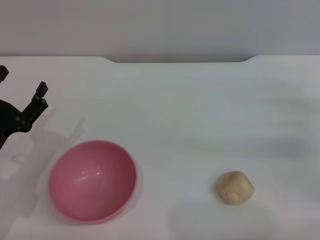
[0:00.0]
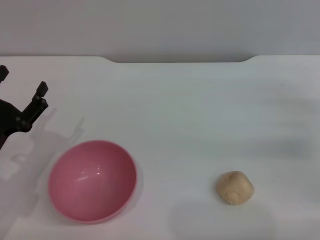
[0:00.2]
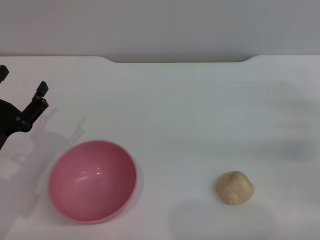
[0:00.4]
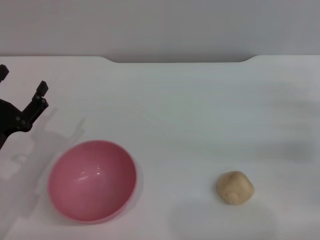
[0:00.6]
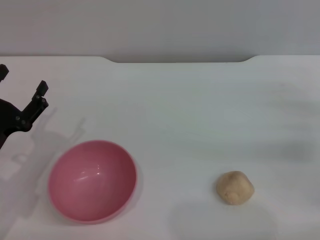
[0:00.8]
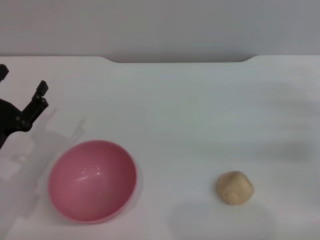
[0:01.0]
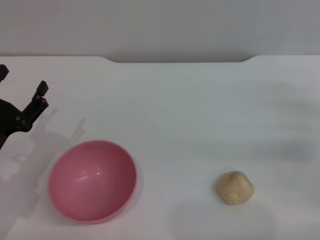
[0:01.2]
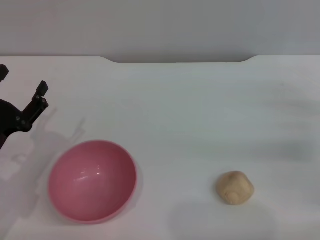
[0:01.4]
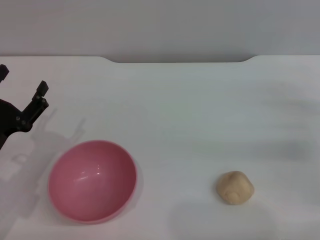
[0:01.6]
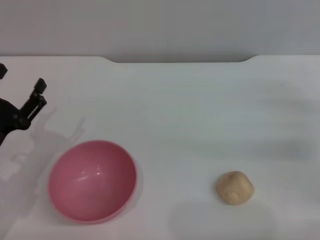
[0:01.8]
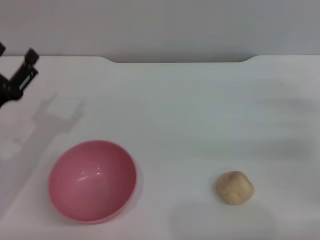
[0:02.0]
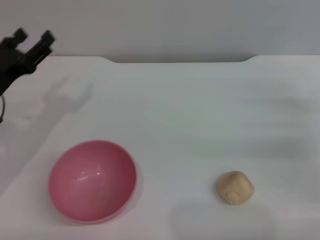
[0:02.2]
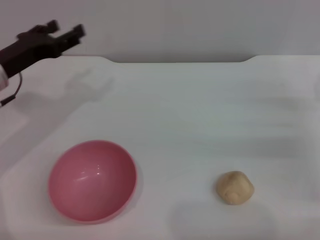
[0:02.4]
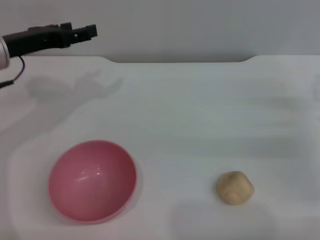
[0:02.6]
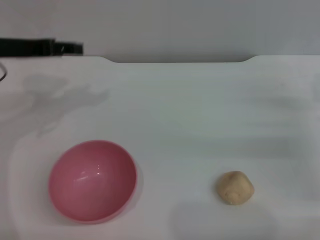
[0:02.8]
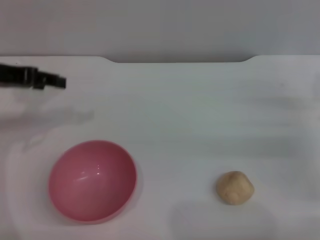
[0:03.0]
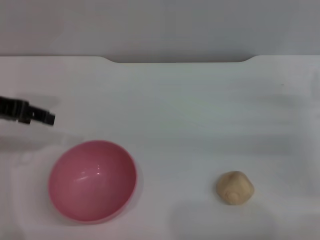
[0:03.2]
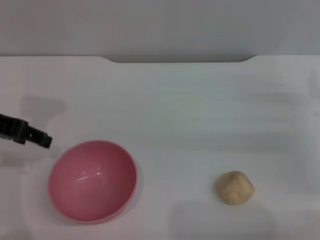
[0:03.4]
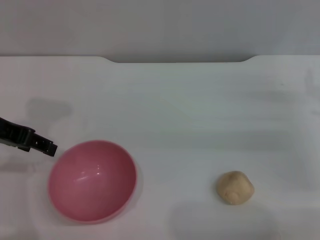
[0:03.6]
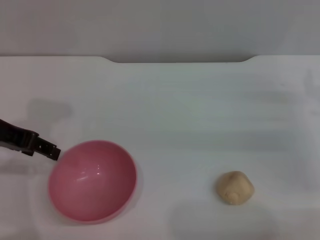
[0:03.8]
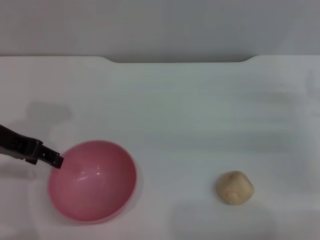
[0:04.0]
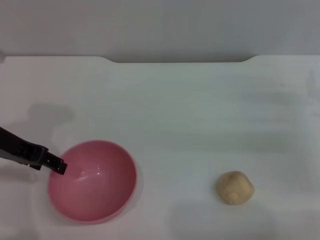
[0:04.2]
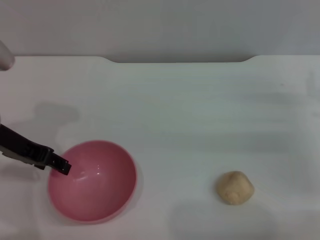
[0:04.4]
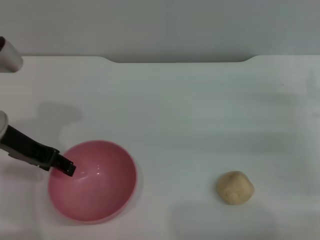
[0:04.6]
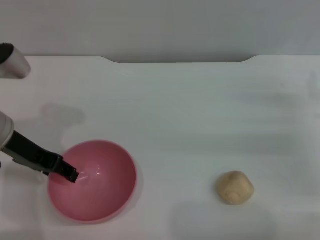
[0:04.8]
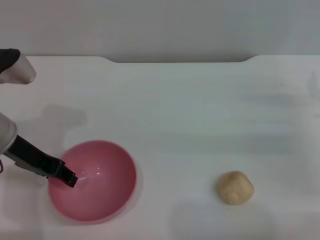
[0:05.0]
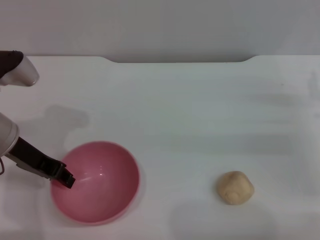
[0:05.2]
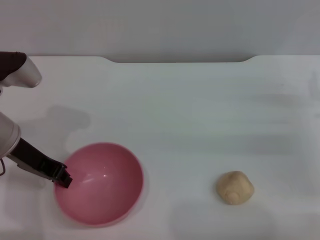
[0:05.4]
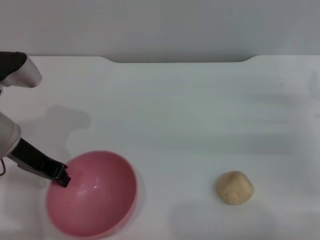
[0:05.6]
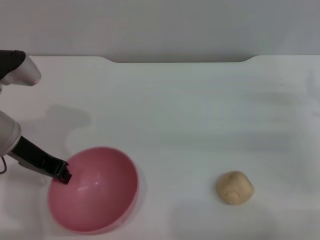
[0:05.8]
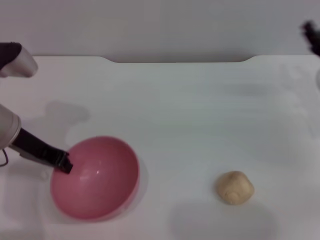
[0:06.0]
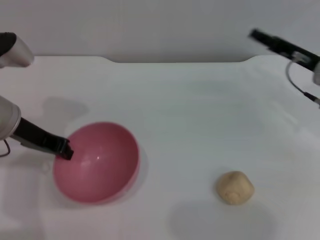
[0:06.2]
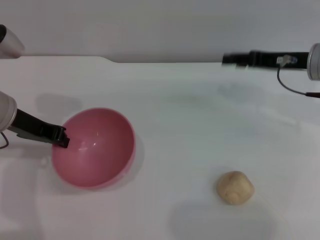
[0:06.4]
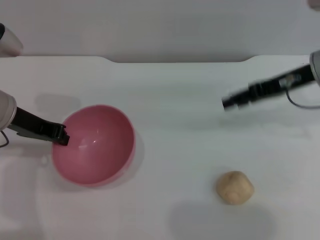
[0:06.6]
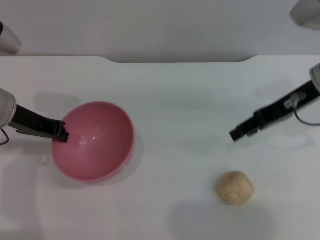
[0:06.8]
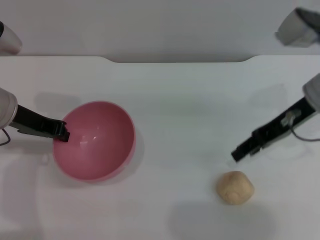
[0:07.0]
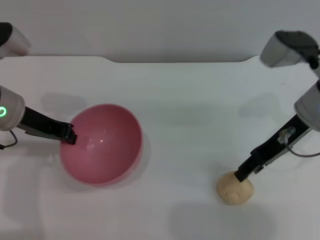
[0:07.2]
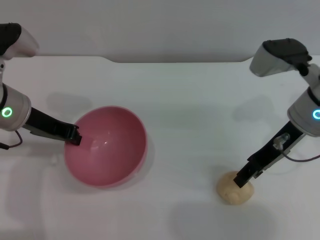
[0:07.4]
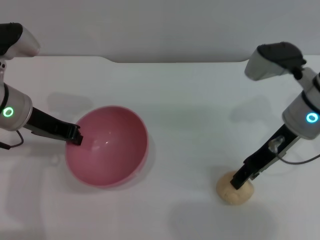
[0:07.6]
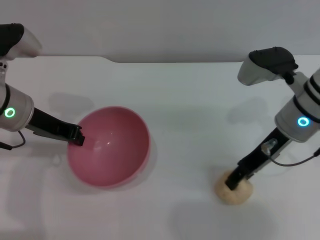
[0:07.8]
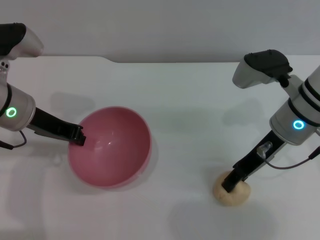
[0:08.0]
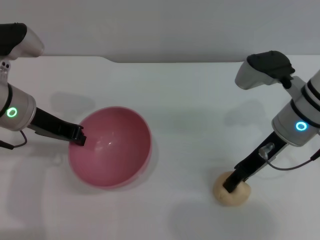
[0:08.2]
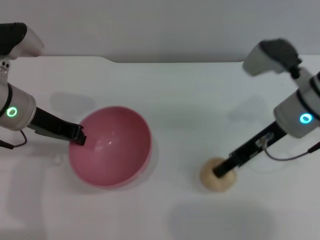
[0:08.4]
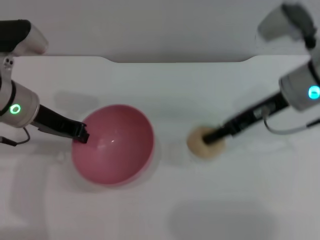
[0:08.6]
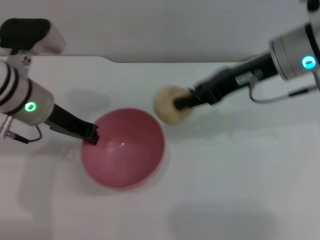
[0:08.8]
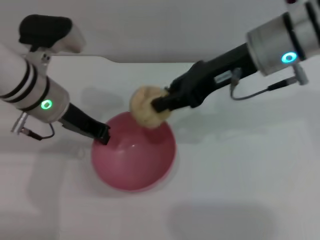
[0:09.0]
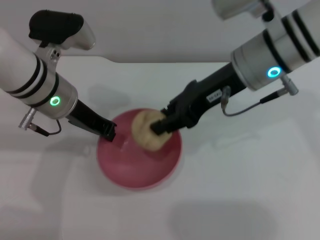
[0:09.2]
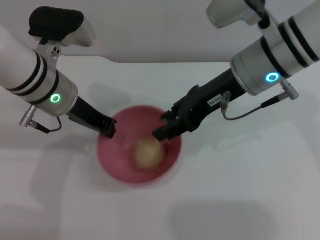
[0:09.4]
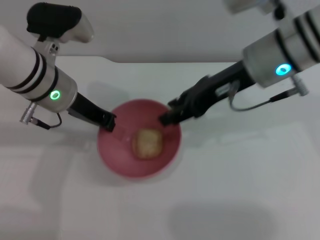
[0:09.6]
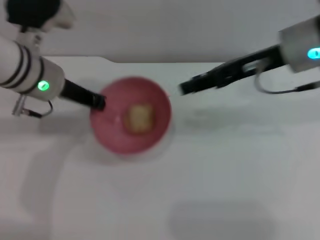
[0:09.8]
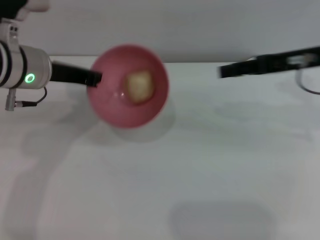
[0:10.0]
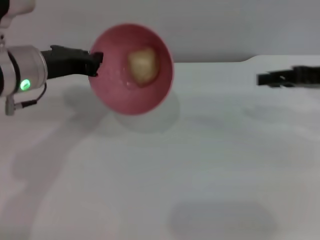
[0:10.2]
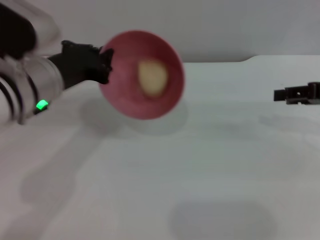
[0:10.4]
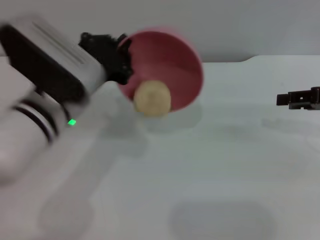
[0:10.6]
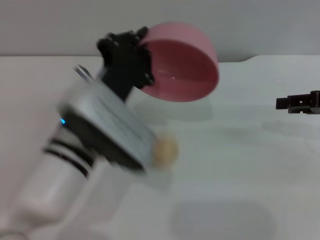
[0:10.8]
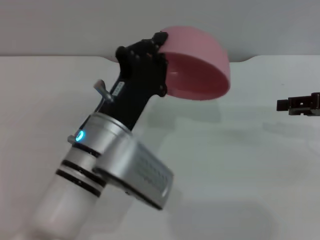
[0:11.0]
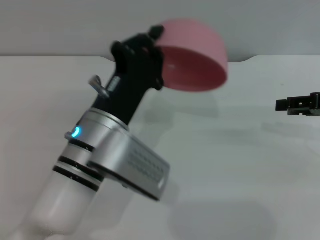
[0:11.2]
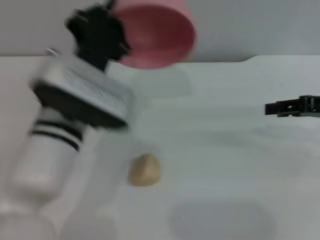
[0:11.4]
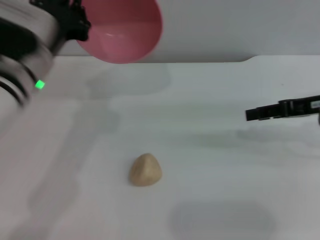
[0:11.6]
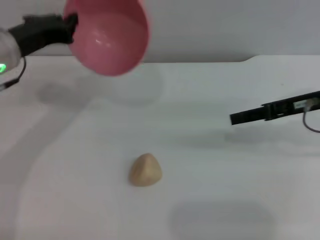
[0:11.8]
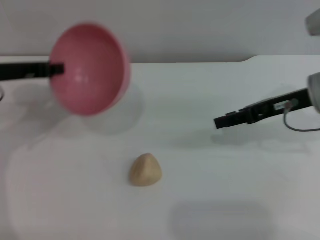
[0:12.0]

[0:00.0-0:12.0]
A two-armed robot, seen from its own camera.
Task of the whole recording: put the egg yolk pastry into the pink bowl and pour it out repeatedly.
Step, 0:00.0 to 0:06.4: Pick up the bowl with the left gripper.
Step, 0:06.8 to 0:08.4: Pick up the egg yolk pastry with the right gripper.
Step, 0:08.6 to 0:09.6: Place the egg yolk pastry into the bowl.
Step, 0:09.8 to 0:11.2: Pour the egg yolk pastry out of bowl.
0:00.0 to 0:01.6: Both grippers stay about where they are.
0:01.6 to 0:03.0: The left gripper goes some 20 cm upward and forward.
0:03.0 to 0:04.4: The left gripper ends up some 5 cm from where it was.
0:04.4 to 0:06.0: The left gripper closes.
0:06.0 to 0:07.6: The right gripper travels to the left and upward by about 15 cm.
0:07.6 to 0:09.0: The left gripper heads to the right, covering roughly 5 cm; the right gripper is displaced upward and to the left by about 10 cm, and closes its fingers.
0:09.0 to 0:10.4: The right gripper moves to the right, some 20 cm, and opens.
0:10.4 to 0:12.0: The grippers both shift to the left by approximately 10 cm.

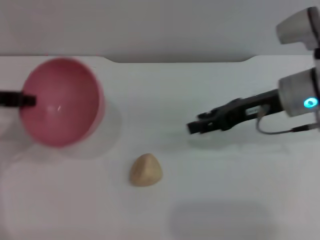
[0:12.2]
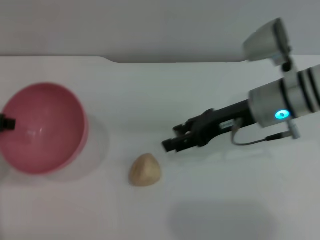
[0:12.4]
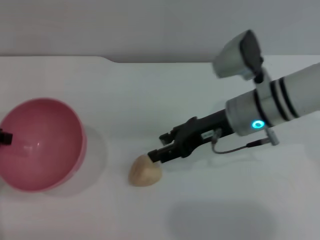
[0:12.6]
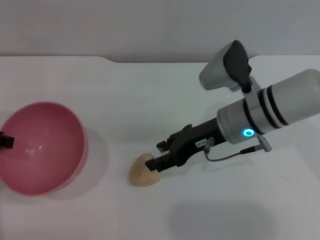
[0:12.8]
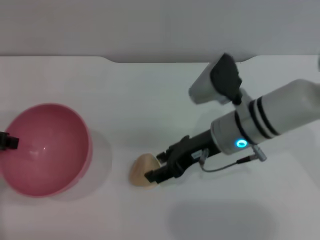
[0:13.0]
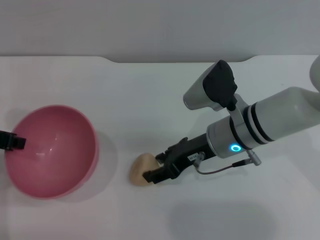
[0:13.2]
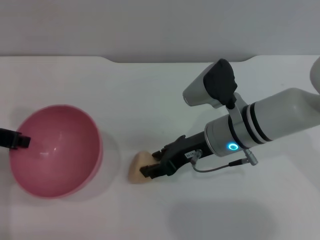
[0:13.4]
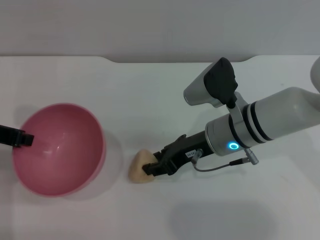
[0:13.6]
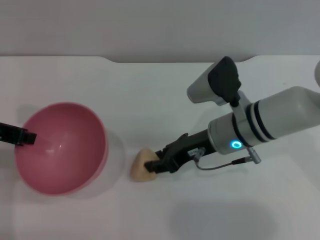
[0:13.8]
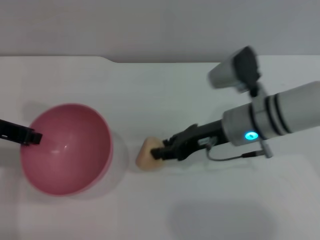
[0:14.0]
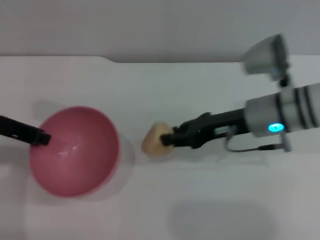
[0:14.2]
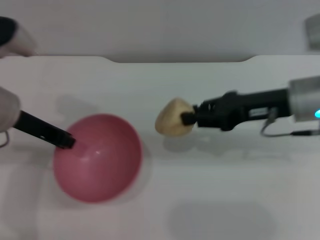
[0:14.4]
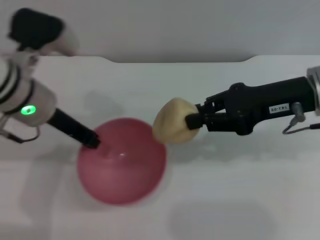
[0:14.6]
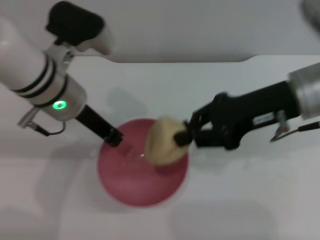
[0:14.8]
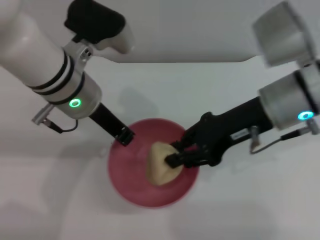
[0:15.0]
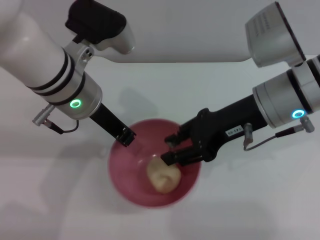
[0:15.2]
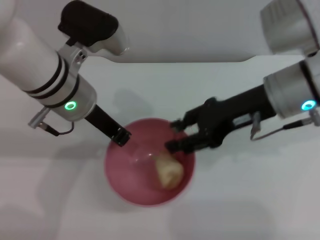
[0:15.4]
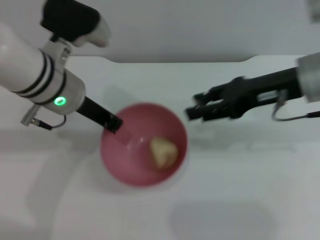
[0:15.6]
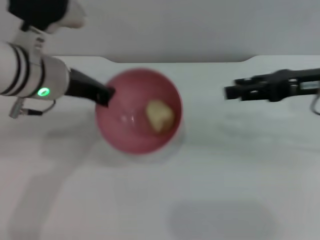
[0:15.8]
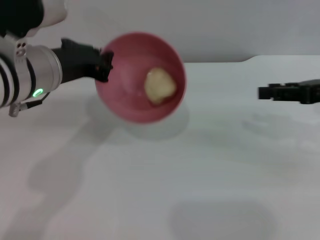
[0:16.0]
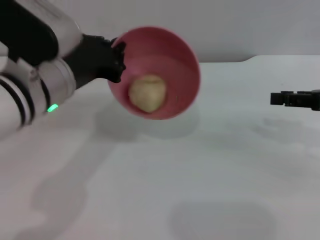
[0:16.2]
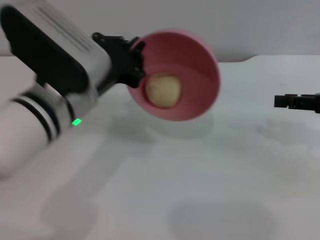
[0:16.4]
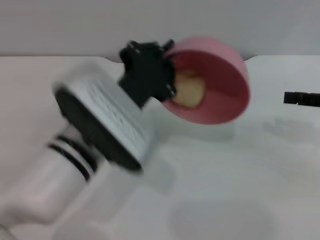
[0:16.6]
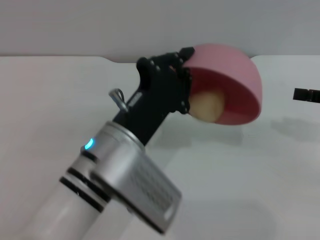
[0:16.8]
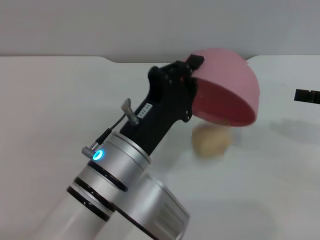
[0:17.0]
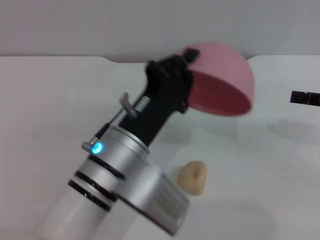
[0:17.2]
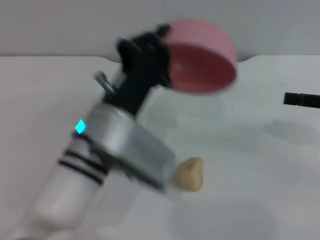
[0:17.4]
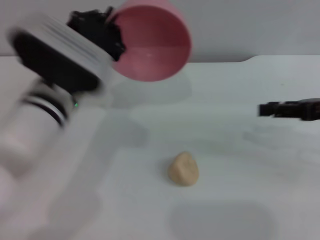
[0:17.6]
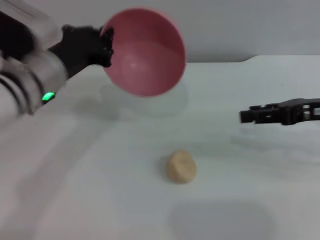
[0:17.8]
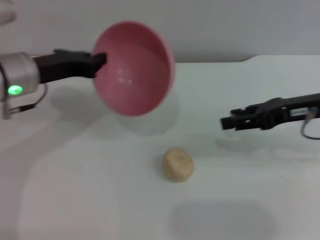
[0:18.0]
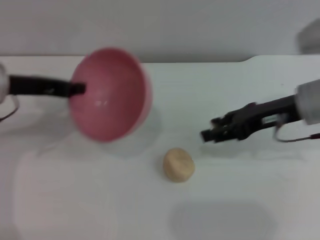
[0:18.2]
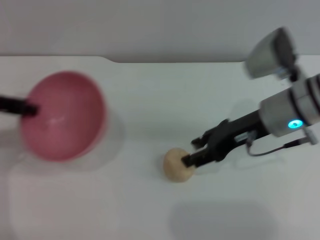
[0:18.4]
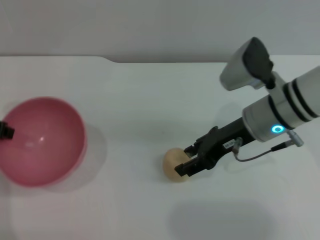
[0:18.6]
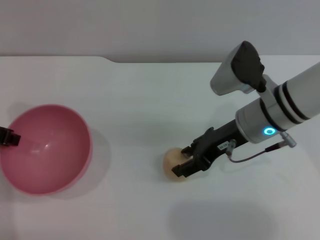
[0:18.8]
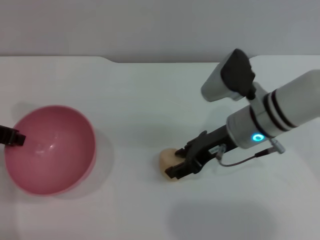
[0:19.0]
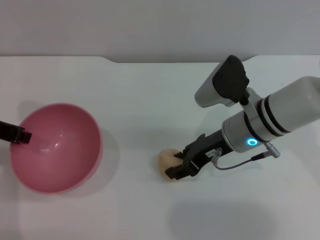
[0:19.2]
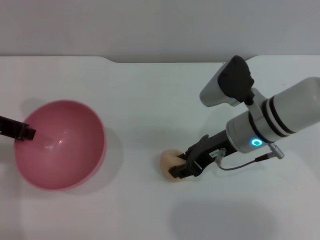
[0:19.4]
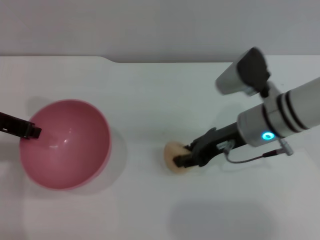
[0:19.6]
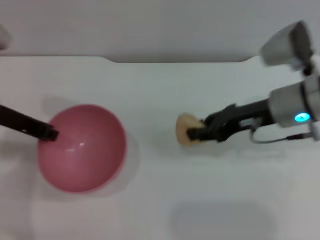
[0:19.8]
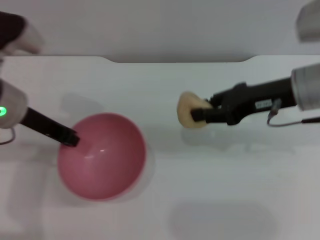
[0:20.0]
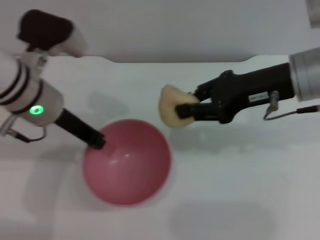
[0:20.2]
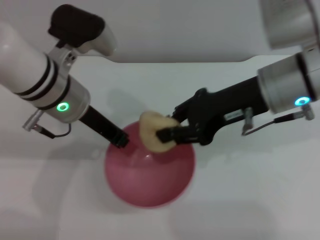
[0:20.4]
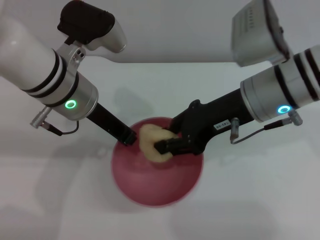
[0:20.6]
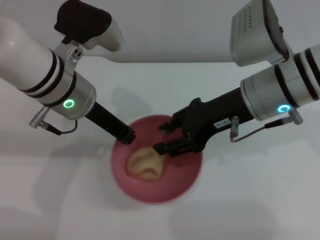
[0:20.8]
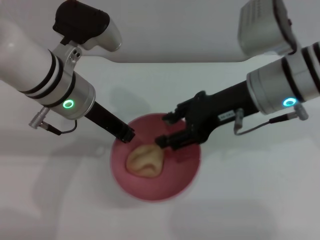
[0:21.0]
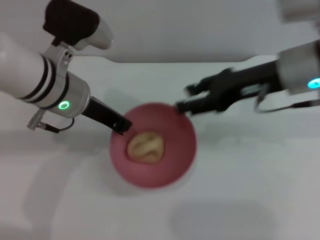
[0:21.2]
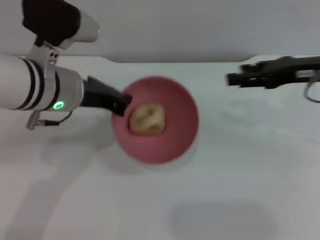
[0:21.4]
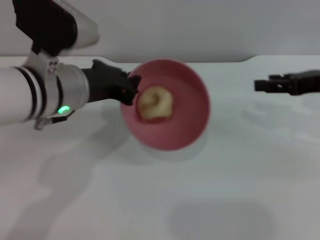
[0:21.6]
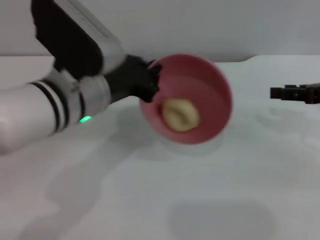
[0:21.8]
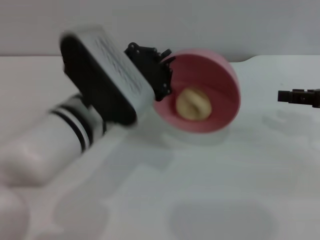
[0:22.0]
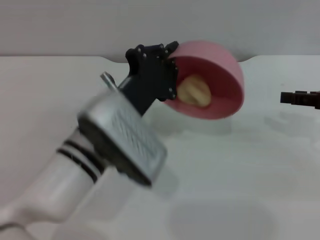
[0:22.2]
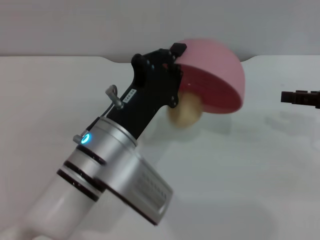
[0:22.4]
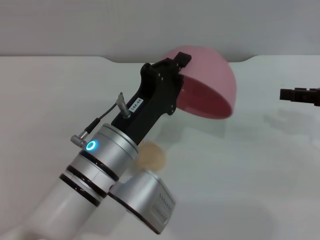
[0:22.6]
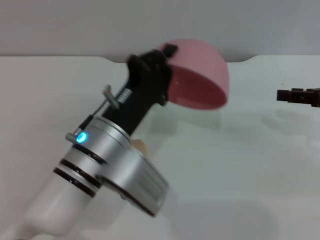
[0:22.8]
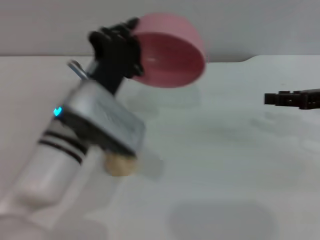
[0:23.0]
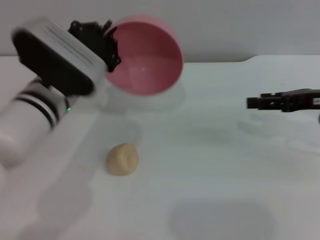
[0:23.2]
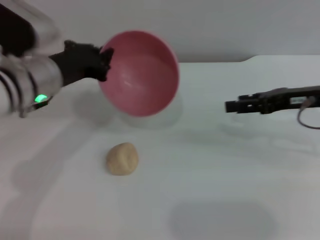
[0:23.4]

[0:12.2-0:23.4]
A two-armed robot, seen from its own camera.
Task of the whole recording: put the egg yolk pastry into the pink bowl and pour it out repeatedly.
Step, 0:12.2 to 0:14.2: Pick up the egg yolk pastry with the right gripper.
Step, 0:14.4 to 0:15.6: Place the egg yolk pastry into the bowl.
Step, 0:15.8 to 0:17.2: Pour the egg yolk pastry out of bowl.
Step, 0:17.4 to 0:20.0: Pick up the egg yolk pastry with the right gripper.
Step, 0:20.2 to 0:21.2: Place the egg yolk pastry into the bowl.
Step, 0:21.4 to 0:22.8: Pour the egg yolk pastry out of bowl.
0:12.2 to 0:13.8: The right gripper heads to the left and downward, covering about 10 cm, and closes its fingers.
0:13.8 to 0:15.4: The right gripper travels upward and to the right by approximately 10 cm; the left gripper travels to the right by about 15 cm.
0:15.4 to 0:17.0: The right gripper is displaced to the right by approximately 20 cm; the left gripper heads backward, downward and to the right, covering roughly 15 cm.
0:17.0 to 0:18.6: Both grippers move to the left, approximately 20 cm.
0:18.6 to 0:20.2: The left gripper goes some 15 cm to the right. Meanwhile the right gripper shifts about 10 cm upward, and closes its fingers.
0:20.2 to 0:21.8: The right gripper goes about 15 cm to the right, and opens; the left gripper shifts some 5 cm to the right.
0:21.8 to 0:23.4: The right gripper travels to the left by approximately 5 cm, while the left gripper shifts some 10 cm to the left and forward.
